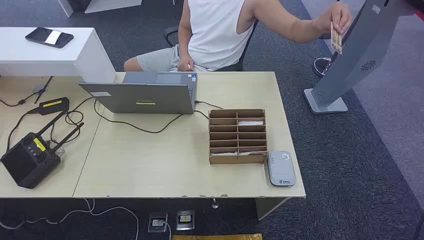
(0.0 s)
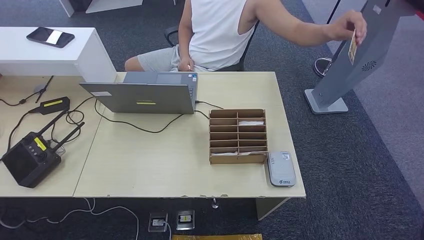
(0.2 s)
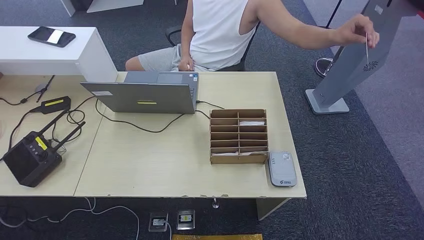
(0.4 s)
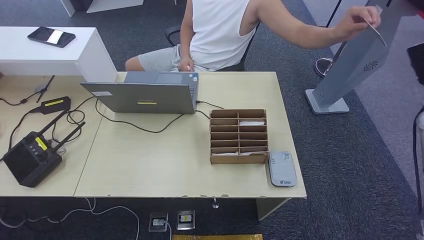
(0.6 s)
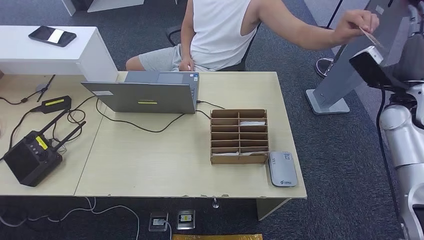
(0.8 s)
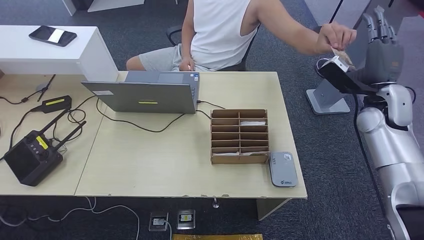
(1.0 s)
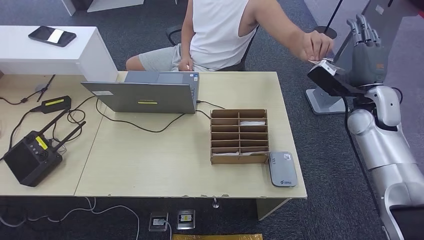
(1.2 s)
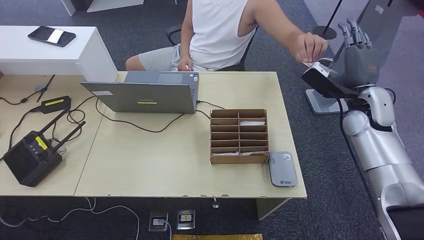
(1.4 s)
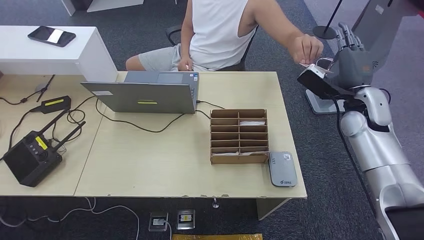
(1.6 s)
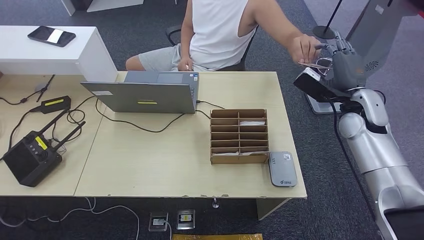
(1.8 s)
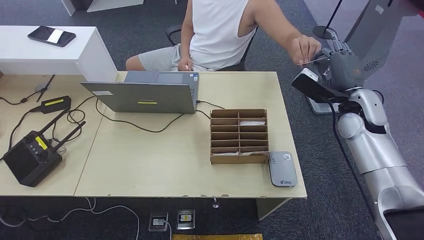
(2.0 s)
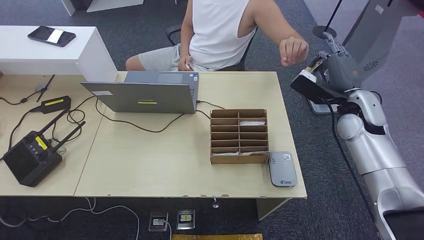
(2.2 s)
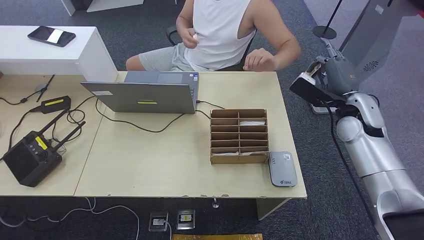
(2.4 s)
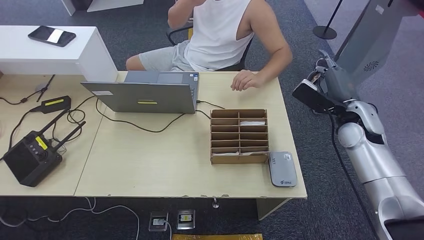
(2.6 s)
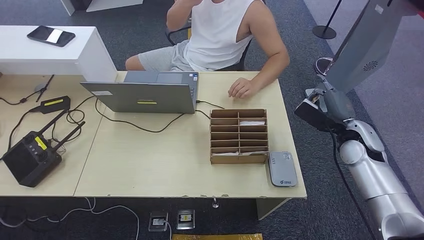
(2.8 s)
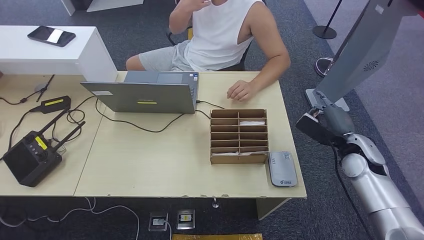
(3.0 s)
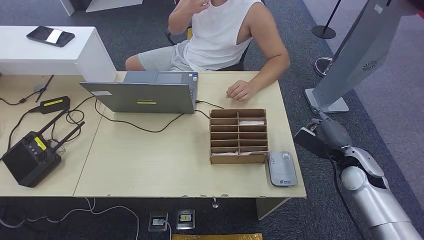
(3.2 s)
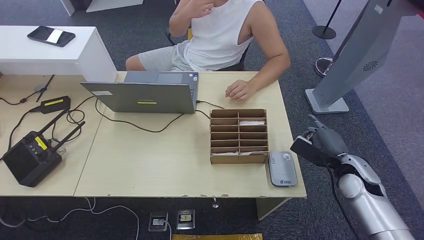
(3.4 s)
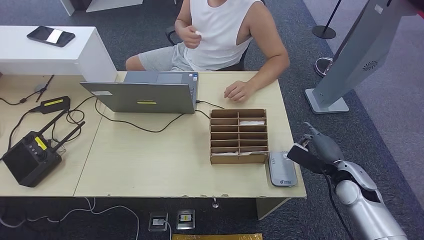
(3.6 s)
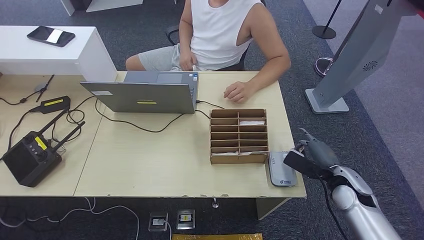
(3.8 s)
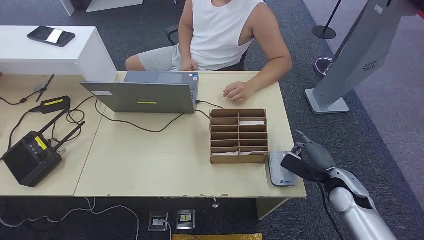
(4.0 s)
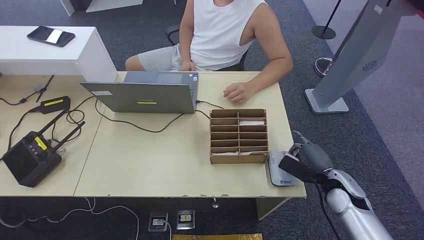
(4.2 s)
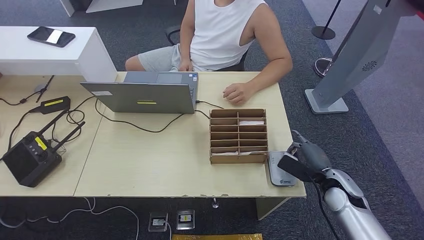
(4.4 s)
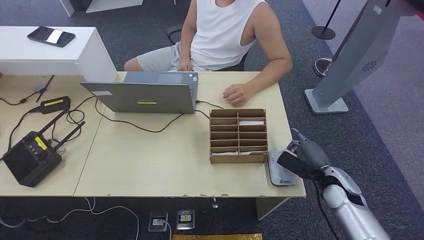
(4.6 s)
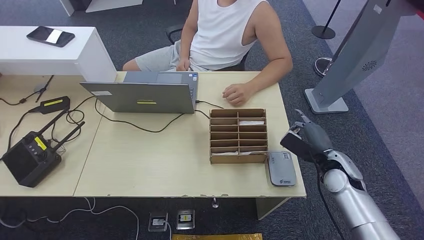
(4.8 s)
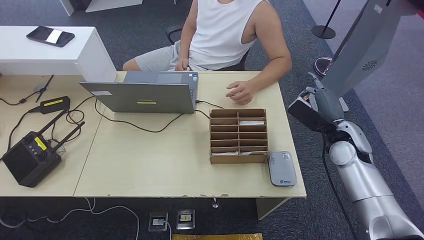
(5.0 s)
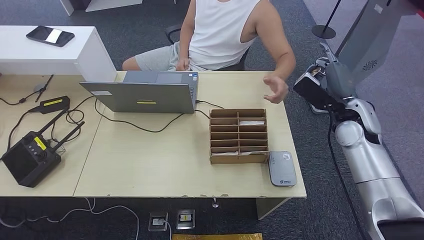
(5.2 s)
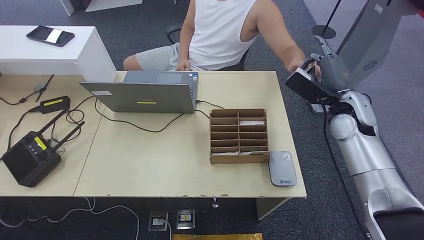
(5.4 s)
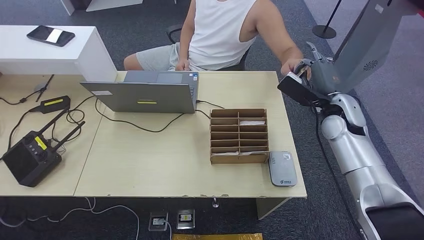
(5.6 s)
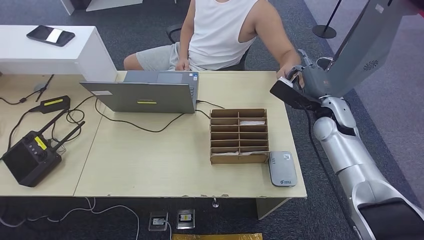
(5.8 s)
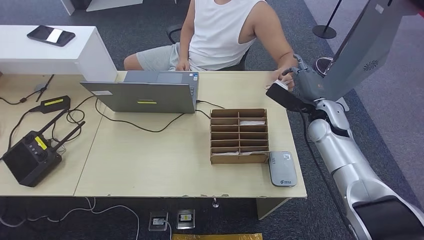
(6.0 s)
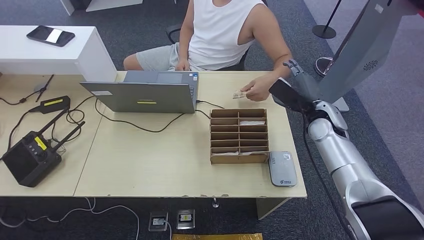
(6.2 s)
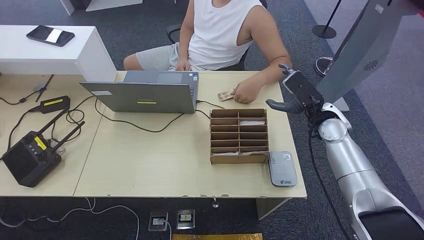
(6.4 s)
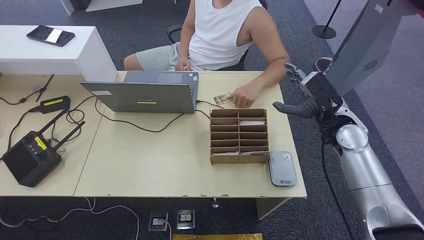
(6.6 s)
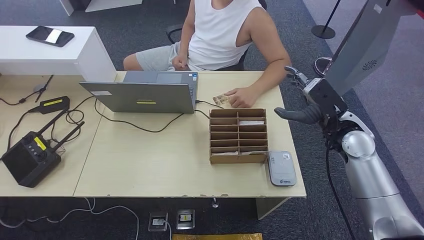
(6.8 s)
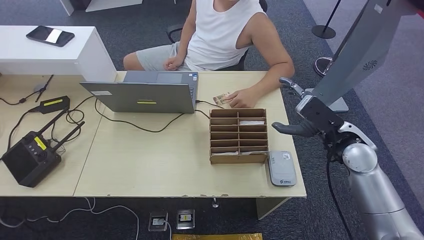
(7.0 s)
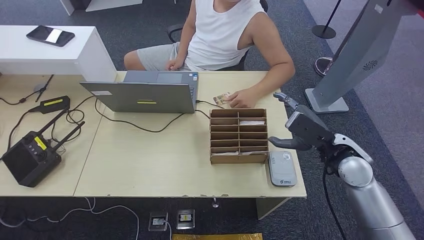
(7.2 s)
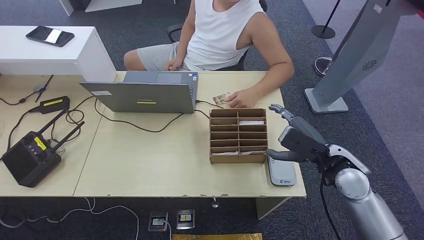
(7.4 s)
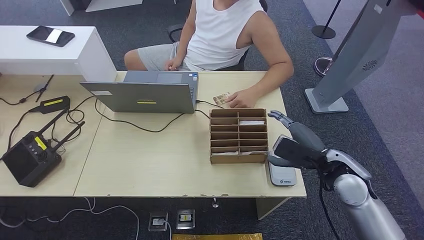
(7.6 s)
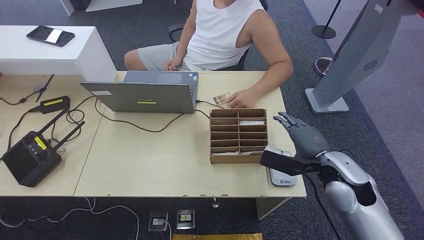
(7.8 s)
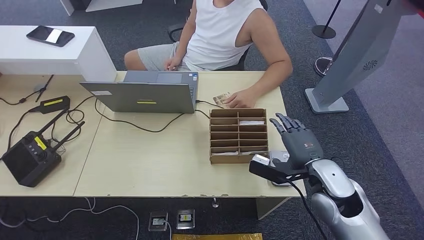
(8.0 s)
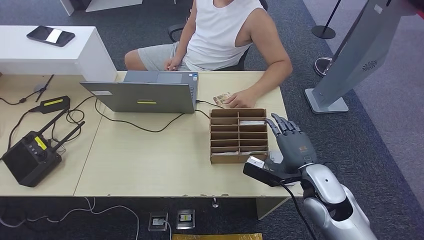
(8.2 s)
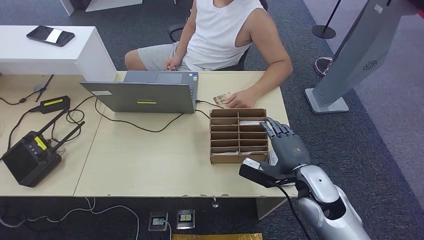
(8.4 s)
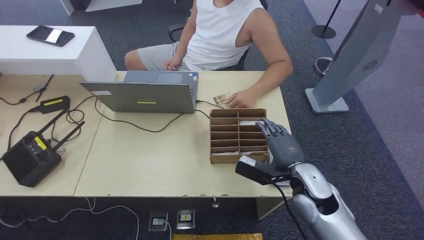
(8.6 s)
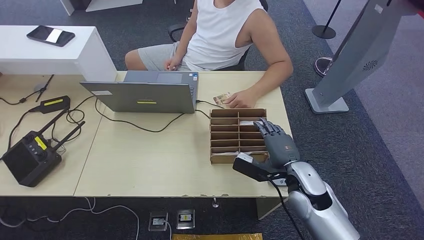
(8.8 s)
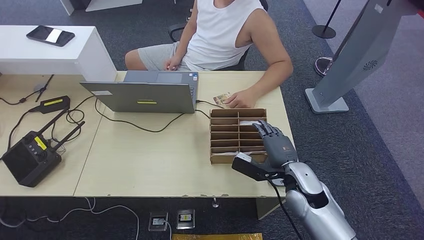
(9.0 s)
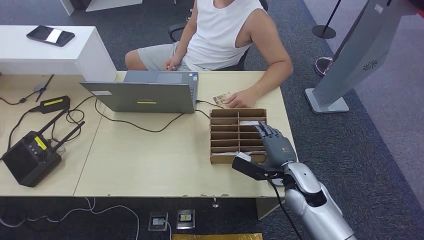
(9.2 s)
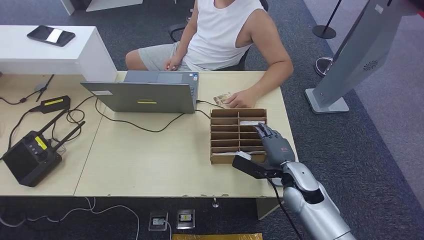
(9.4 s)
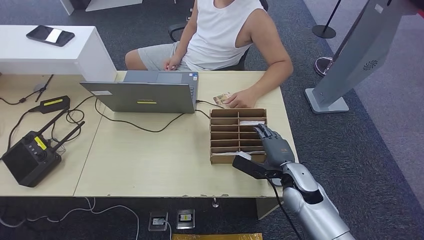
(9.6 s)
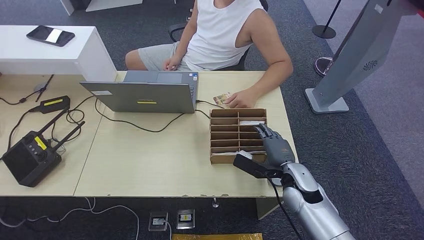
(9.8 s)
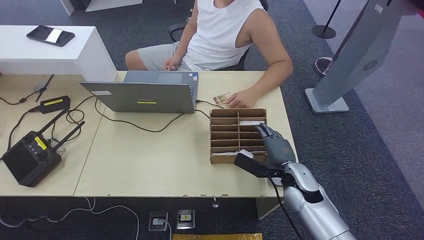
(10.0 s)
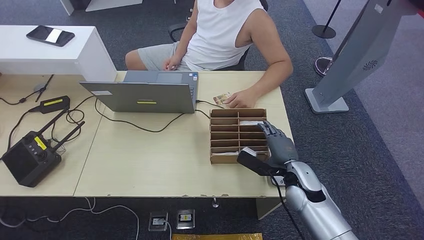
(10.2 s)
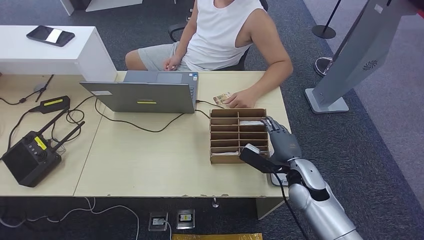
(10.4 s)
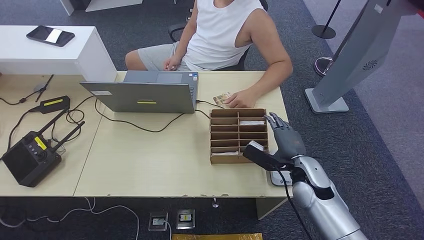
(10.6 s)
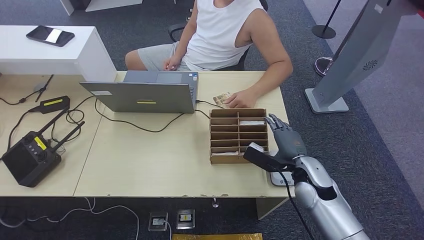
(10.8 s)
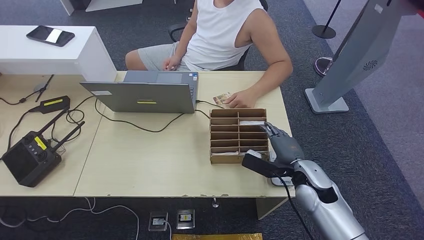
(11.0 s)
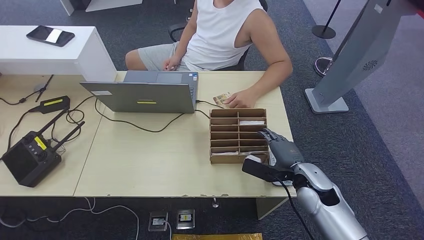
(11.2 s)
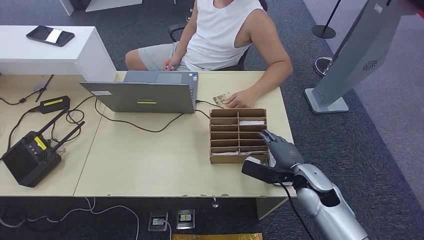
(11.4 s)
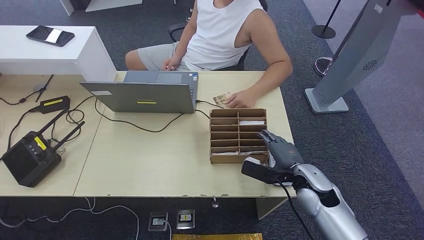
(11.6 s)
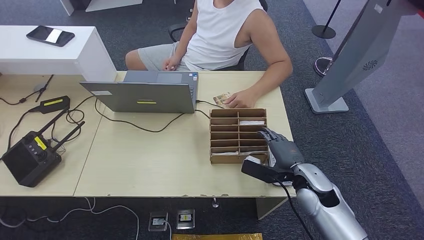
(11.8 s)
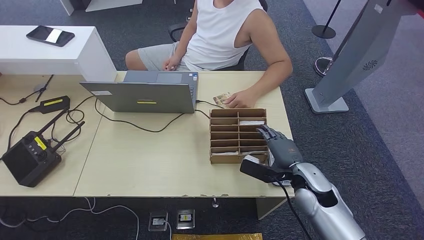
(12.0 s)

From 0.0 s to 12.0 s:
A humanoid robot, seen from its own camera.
Step, from 0.0 s to 1.0 s: Take the ID card from the person's hand.
Step, from 1.4 s to 4.4 s: Place the ID card on the card reader.
Step, from 4.6 s to 7.0 s: Hand the ID card to the person.
From 1.6 s to 3.0 s: The right hand heads downward and backward, covering approximately 10 cm.
From 3.0 s to 4.4 s: The right hand goes roughly 10 cm downward and backward.
From 4.4 s to 6.0 s: The right hand is displaced forward and upward by roughly 20 cm.
From 6.0 s to 7.6 s: The right hand heads backward, covering approximately 15 cm.
From 7.6 s to 9.0 s: The right hand travels downward and to the left by roughly 10 cm.
From 9.0 s to 12.0 s: The hands make only small movements.

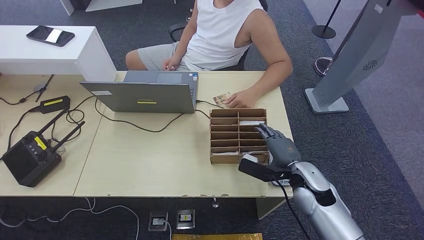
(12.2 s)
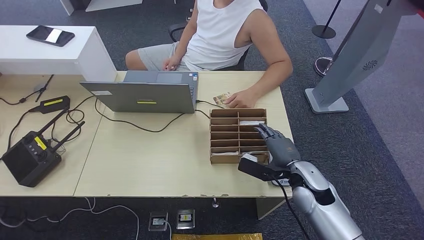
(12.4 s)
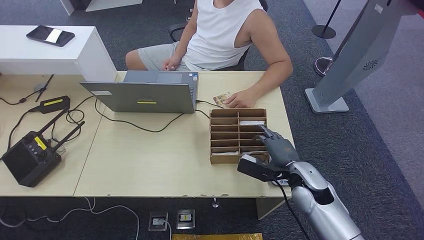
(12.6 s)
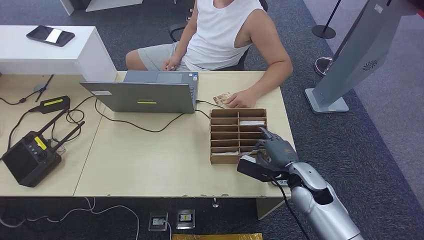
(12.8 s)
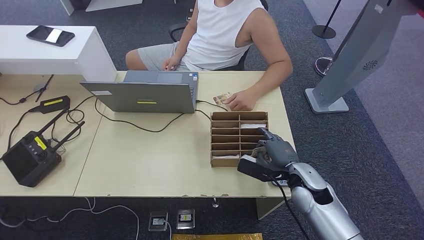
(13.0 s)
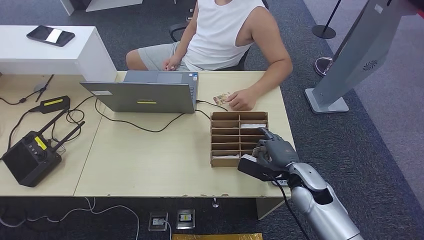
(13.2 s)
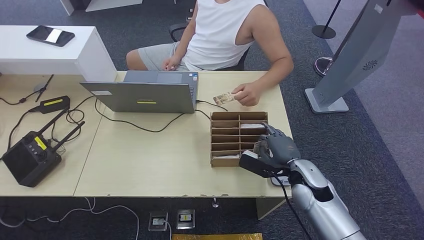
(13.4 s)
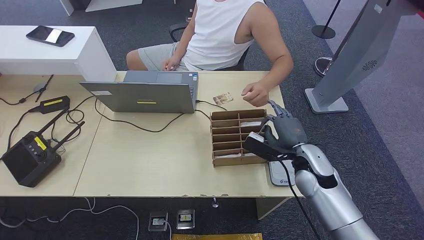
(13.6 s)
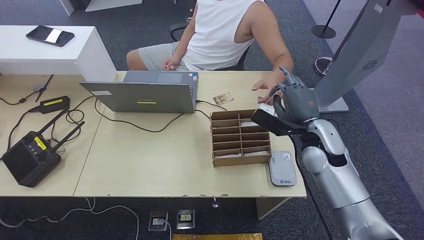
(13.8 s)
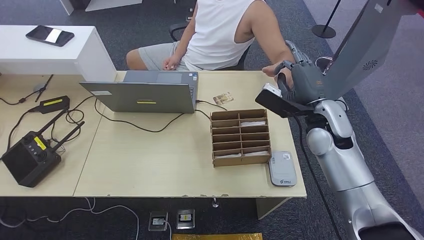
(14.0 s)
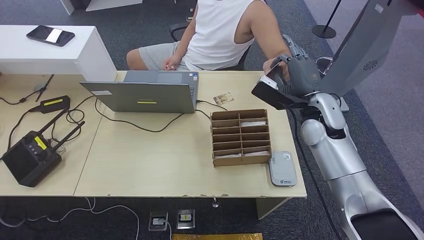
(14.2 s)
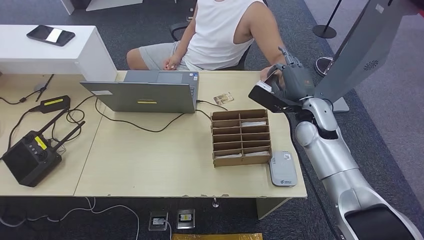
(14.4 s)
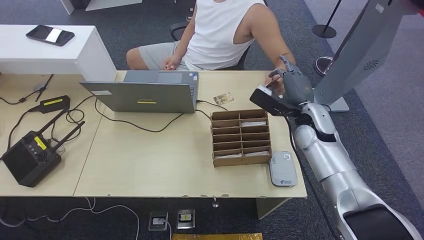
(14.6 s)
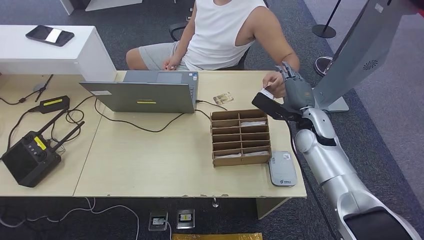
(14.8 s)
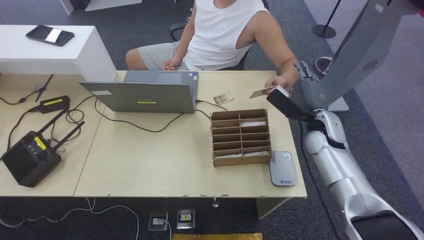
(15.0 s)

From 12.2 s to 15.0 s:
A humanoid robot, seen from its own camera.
Step, from 14.0 s to 15.0 s: Hand the room key to the person.
From 12.2 s to 13.6 s: There are only small adjustments of the hands.
From 13.6 s to 15.0 s: The right hand shifts about 10 cm forward.

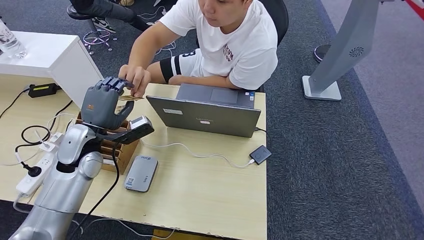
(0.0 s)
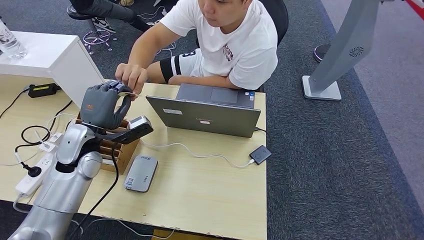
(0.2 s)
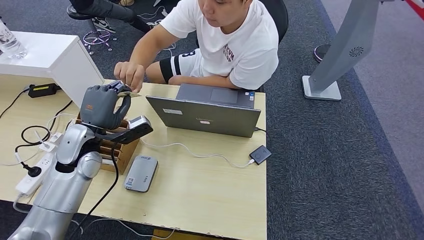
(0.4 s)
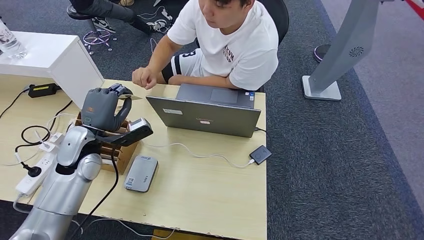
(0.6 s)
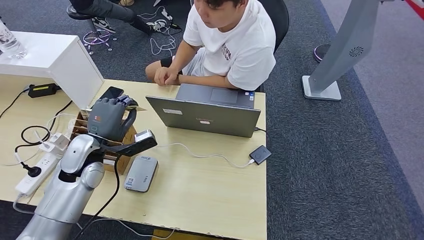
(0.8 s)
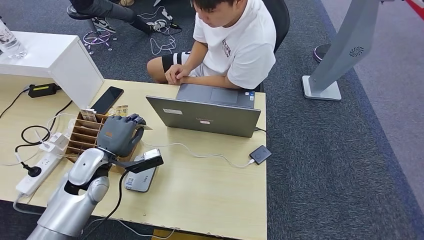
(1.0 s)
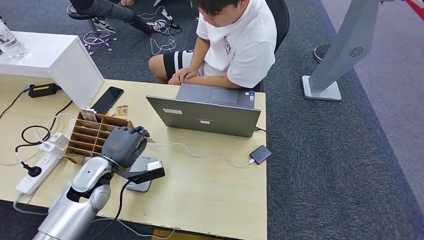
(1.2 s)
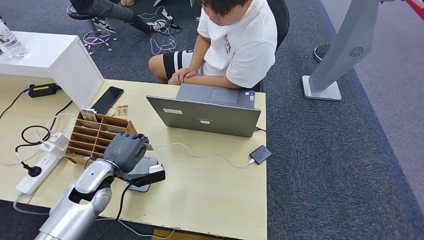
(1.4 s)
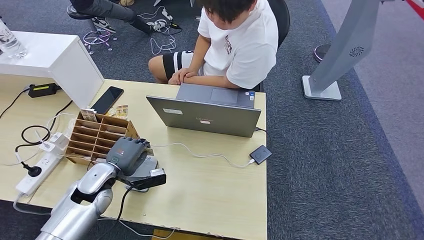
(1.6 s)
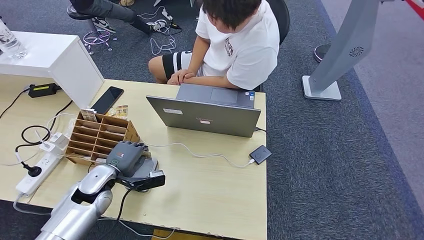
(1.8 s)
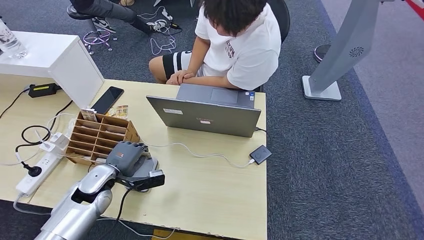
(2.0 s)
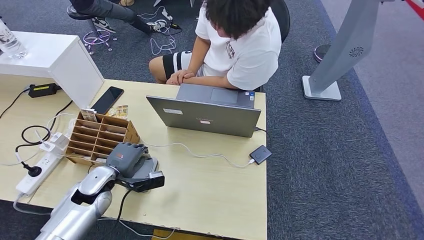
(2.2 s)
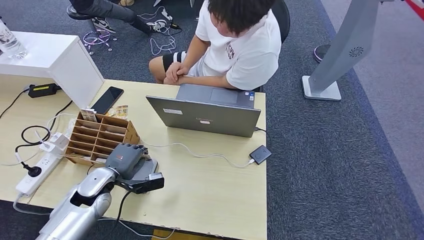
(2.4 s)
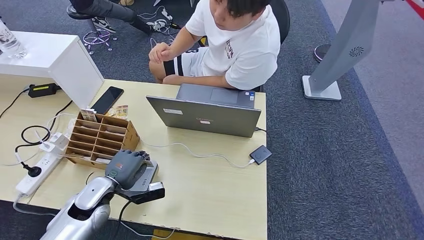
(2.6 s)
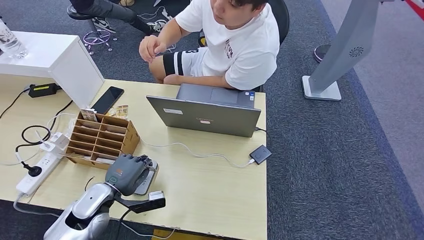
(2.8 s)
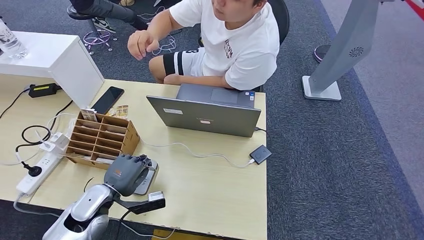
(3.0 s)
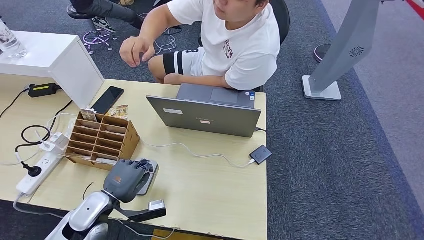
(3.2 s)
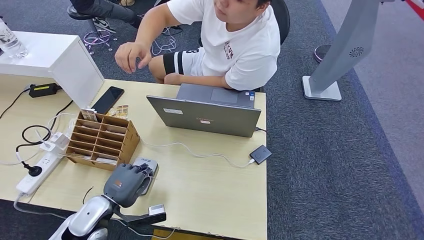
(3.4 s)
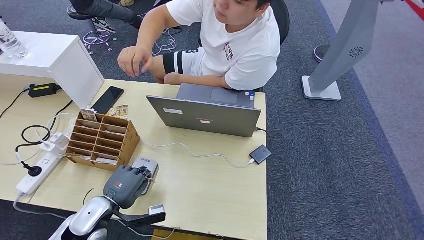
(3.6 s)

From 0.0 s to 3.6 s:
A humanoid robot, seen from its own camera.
Step, from 0.0 s to 2.2 s: Take the ID card from the person's hand.
From 0.0 s to 1.8 s: The left hand goes approximately 15 cm downward and backward.
From 1.8 s to 3.6 s: The left hand moves backward, approximately 10 cm.
